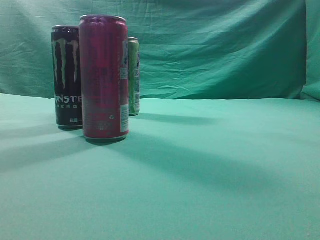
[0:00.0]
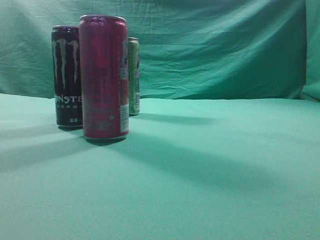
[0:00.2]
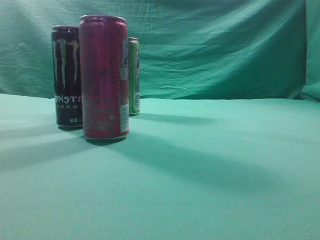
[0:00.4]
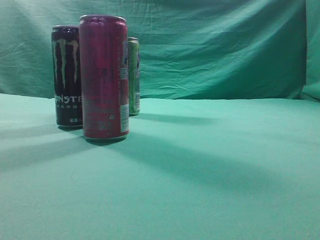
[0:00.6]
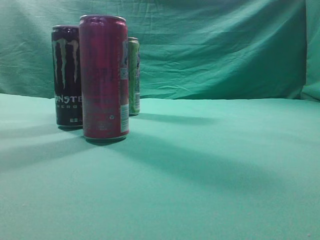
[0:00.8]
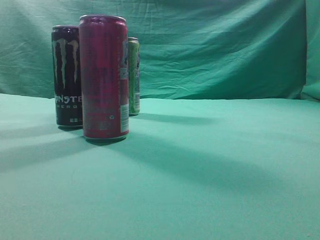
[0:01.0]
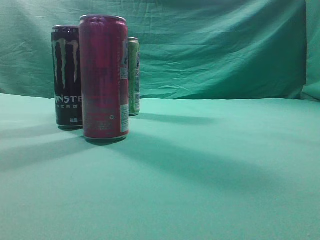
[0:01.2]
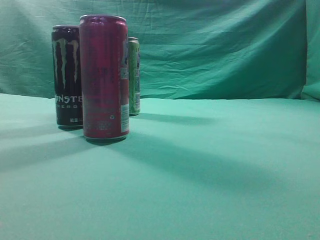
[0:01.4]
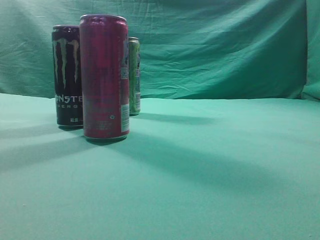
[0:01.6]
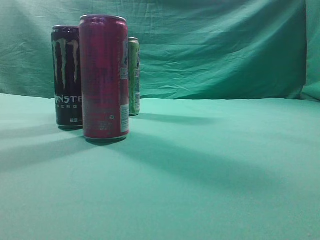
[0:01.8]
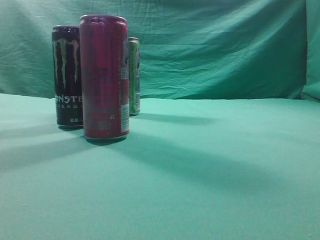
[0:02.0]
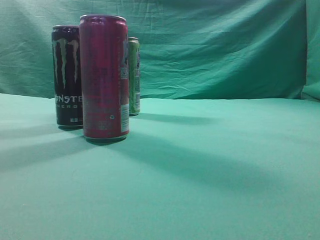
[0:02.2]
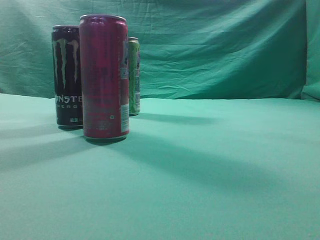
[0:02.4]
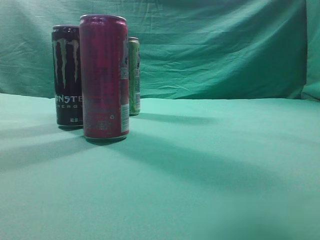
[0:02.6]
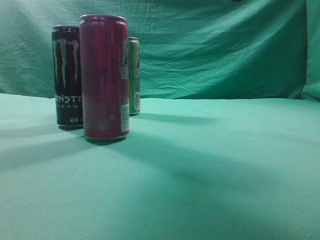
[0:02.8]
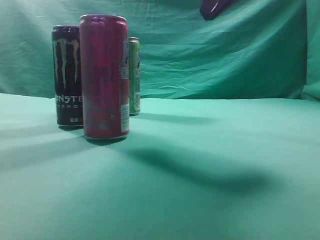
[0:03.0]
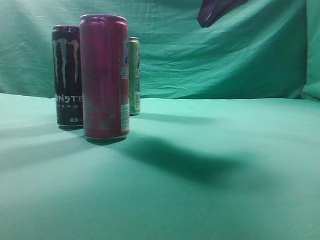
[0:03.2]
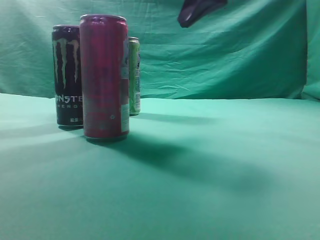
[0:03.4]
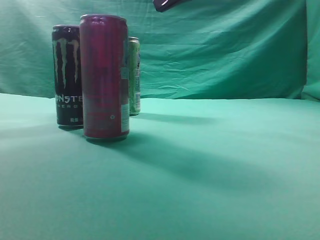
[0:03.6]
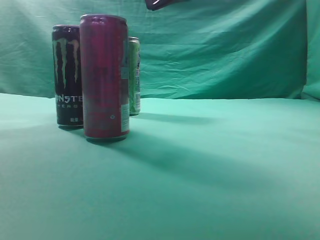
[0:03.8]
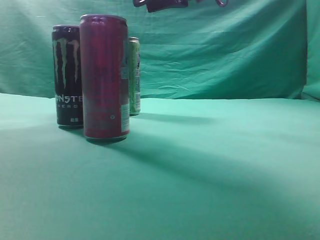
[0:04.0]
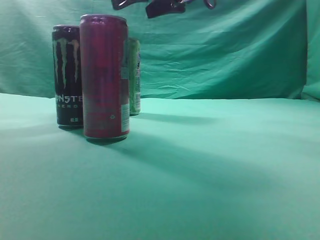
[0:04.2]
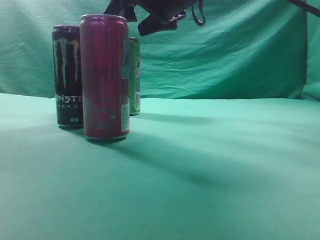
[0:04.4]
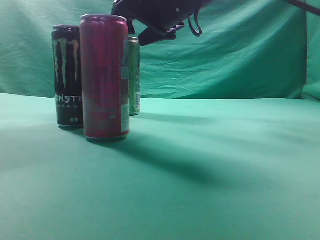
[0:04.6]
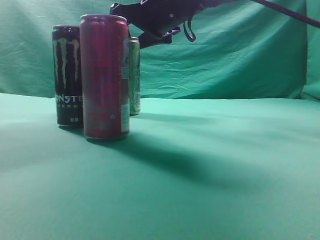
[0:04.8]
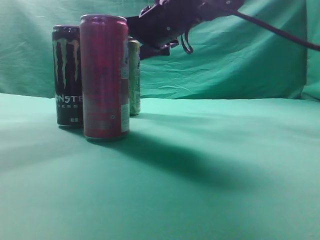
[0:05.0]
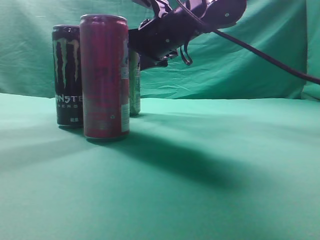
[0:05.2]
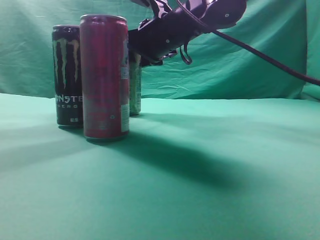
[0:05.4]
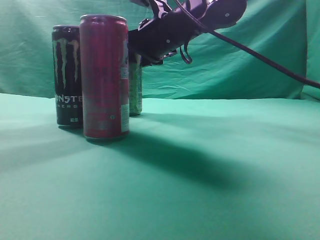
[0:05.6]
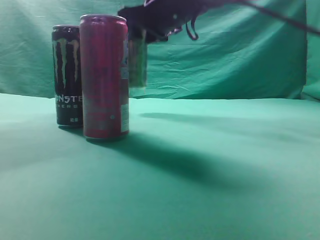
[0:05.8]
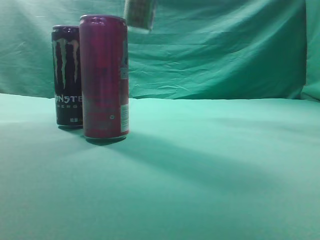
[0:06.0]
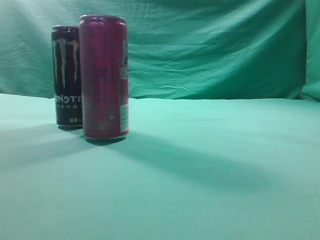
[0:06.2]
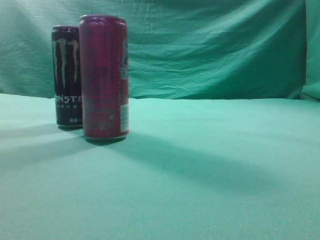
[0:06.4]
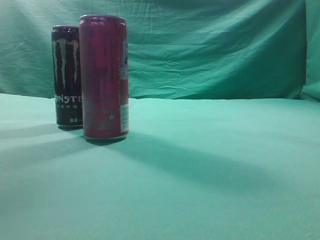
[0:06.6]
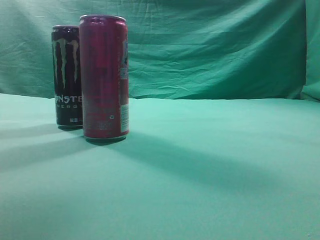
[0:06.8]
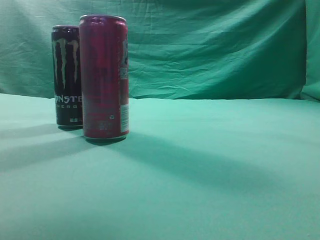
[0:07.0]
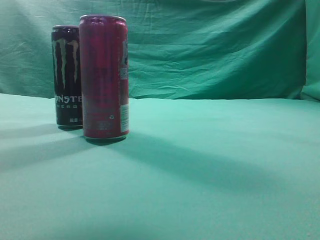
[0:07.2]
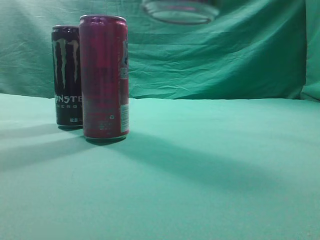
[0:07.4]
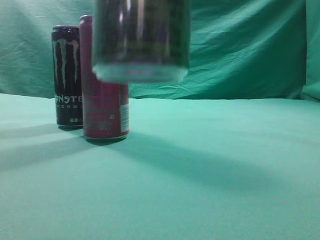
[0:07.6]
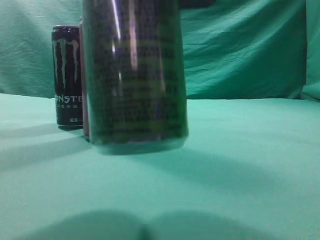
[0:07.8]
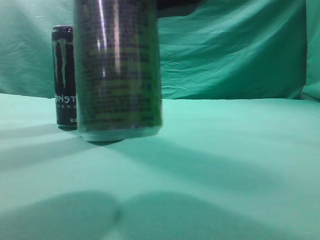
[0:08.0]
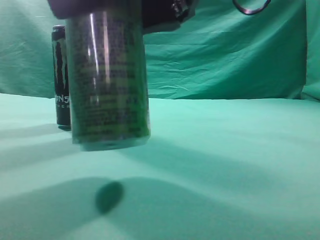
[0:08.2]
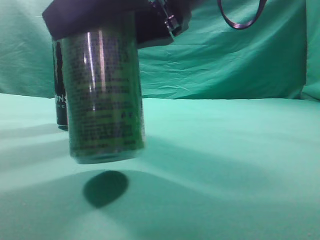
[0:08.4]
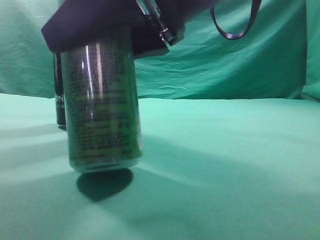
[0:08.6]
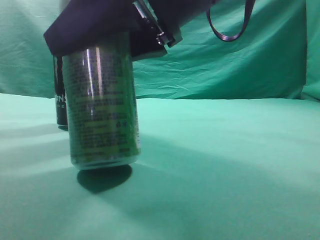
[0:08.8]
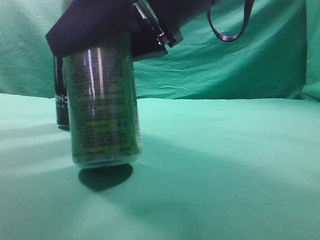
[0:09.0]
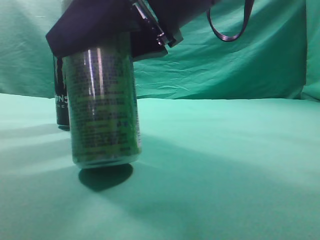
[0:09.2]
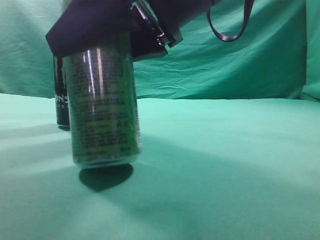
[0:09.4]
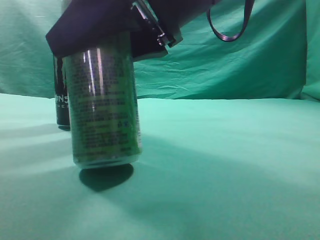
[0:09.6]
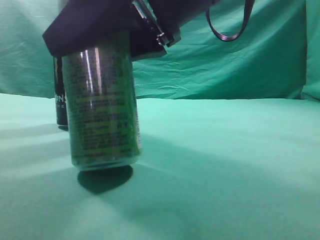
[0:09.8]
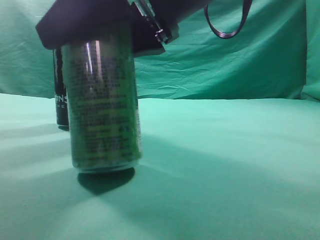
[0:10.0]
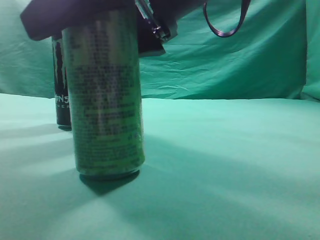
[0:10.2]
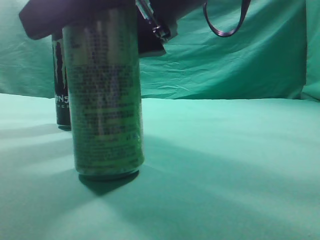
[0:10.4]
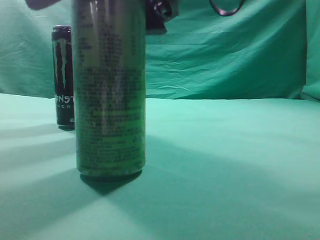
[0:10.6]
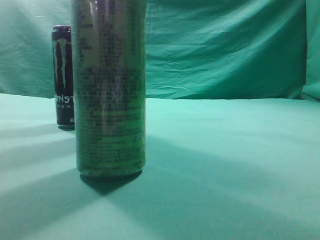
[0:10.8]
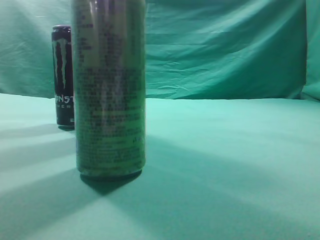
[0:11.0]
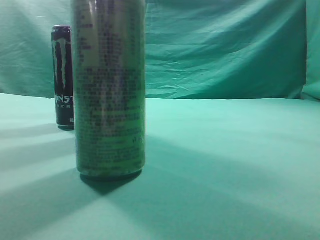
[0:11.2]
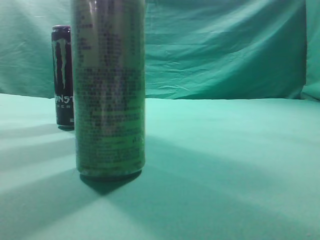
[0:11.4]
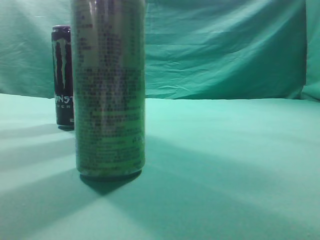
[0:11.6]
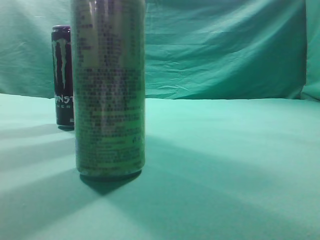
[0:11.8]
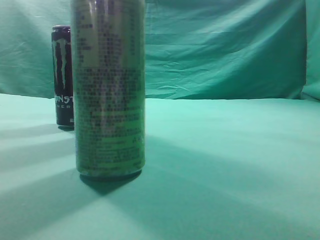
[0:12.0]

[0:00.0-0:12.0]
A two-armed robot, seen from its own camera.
Task of the whole recording: move one drink among three beverages.
Step, 0:00.0 to 0:06.6: Grasp the beverage bottle placed at the back of the desk.
0:01.6 to 0:03.0: The right gripper travels forward and to the left by some 30 cm.
0:03.0 to 0:04.4: The right gripper moves forward and to the left, approximately 15 cm, and opens up.
0:04.4 to 0:06.0: The right gripper travels upward by approximately 10 cm, and closes up.
0:06.0 to 0:07.6: The right gripper heads backward, covering about 25 cm.
0:07.6 to 0:09.0: The right gripper travels forward, to the left and downward by approximately 10 cm.
0:09.0 to 0:10.4: The right gripper opens its fingers.
0:10.4 to 0:12.0: The right gripper is displaced upward, to the right and backward by roughly 30 cm, and closes its fingers.
